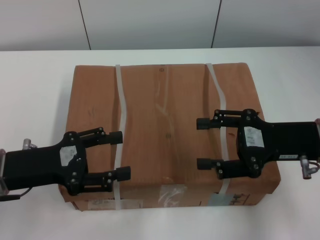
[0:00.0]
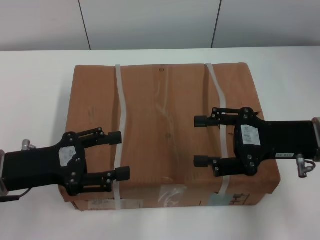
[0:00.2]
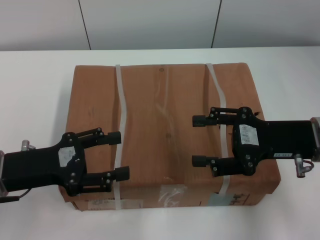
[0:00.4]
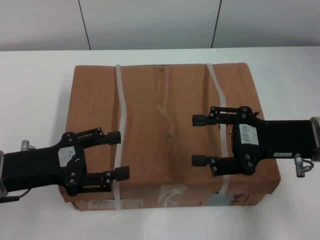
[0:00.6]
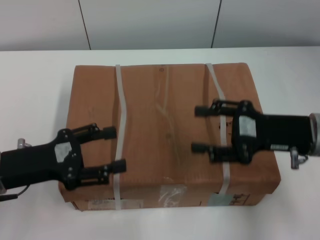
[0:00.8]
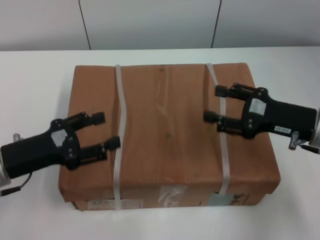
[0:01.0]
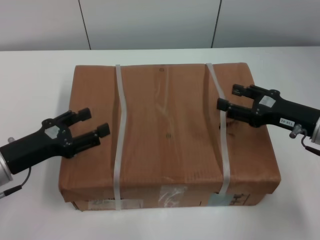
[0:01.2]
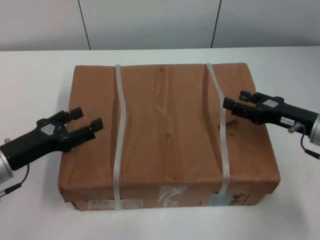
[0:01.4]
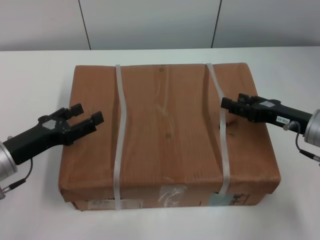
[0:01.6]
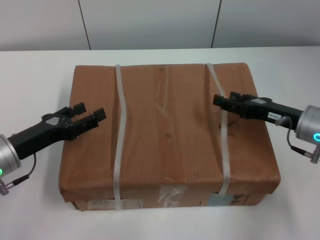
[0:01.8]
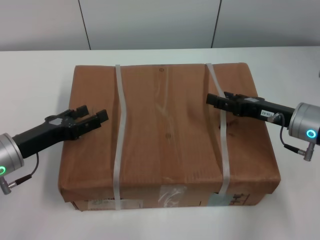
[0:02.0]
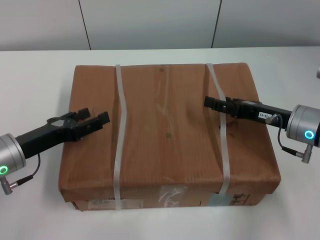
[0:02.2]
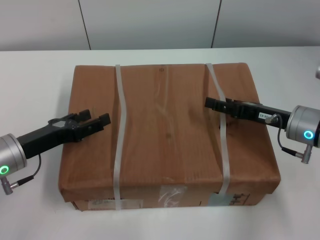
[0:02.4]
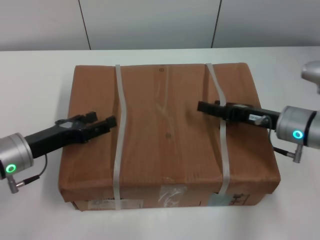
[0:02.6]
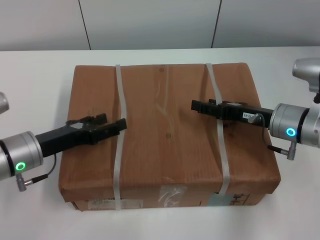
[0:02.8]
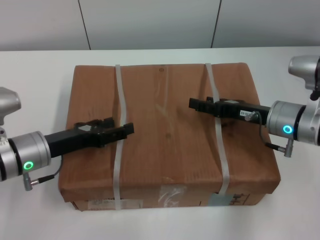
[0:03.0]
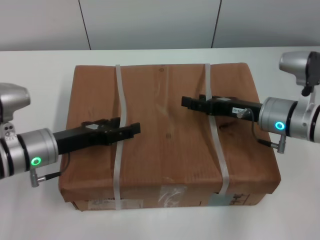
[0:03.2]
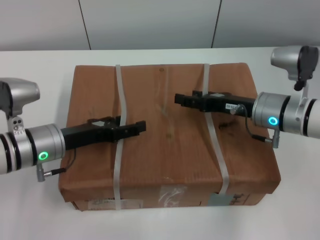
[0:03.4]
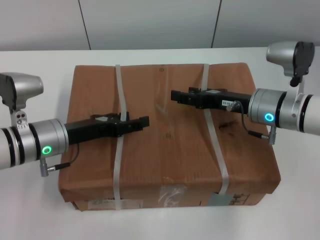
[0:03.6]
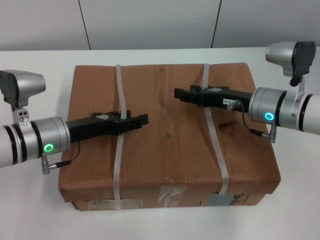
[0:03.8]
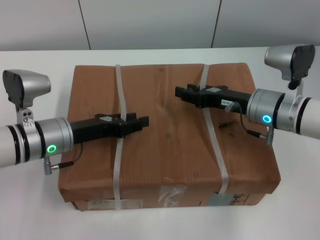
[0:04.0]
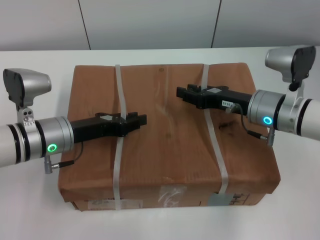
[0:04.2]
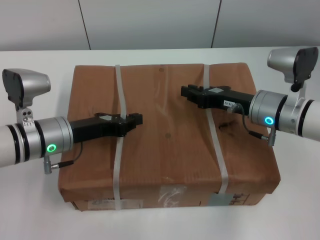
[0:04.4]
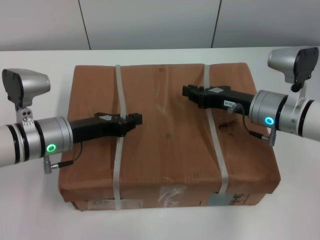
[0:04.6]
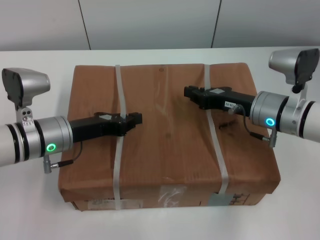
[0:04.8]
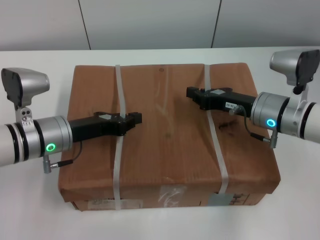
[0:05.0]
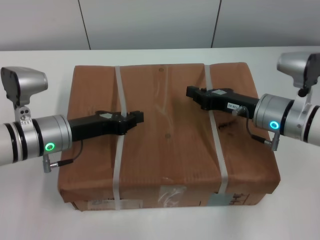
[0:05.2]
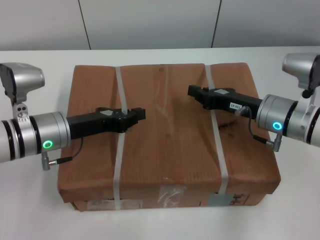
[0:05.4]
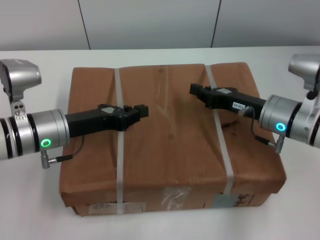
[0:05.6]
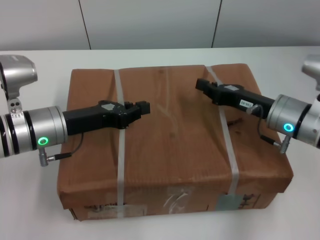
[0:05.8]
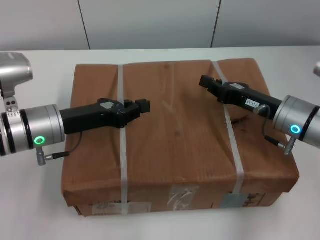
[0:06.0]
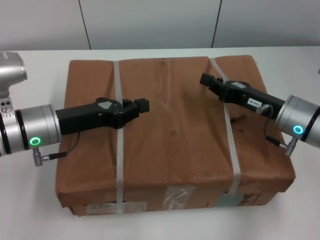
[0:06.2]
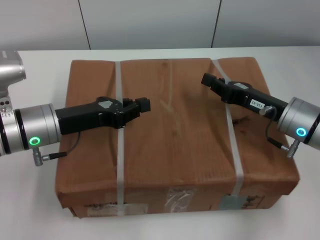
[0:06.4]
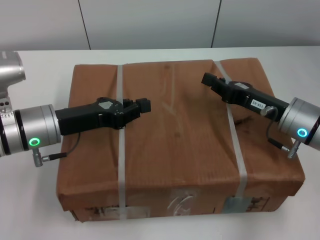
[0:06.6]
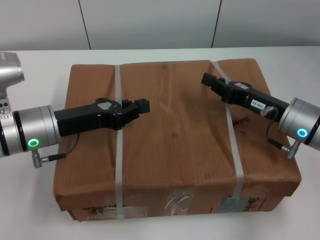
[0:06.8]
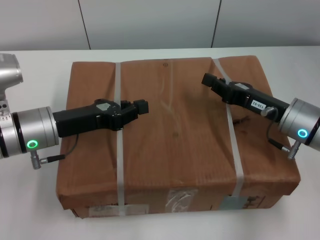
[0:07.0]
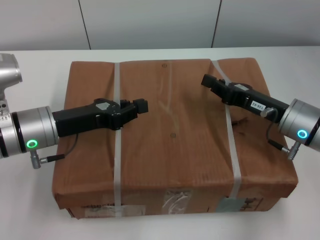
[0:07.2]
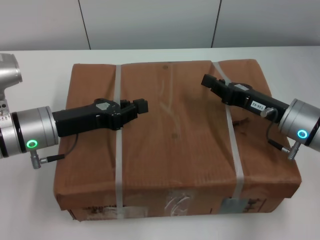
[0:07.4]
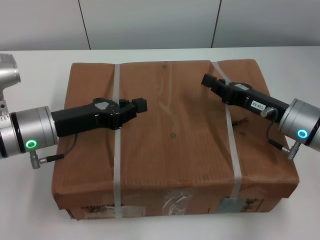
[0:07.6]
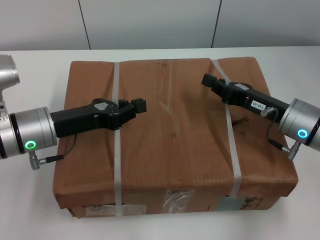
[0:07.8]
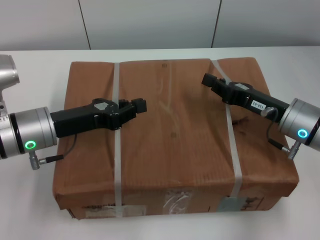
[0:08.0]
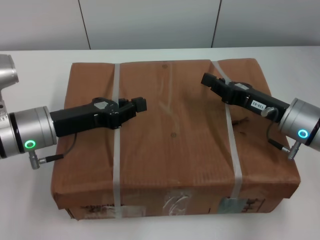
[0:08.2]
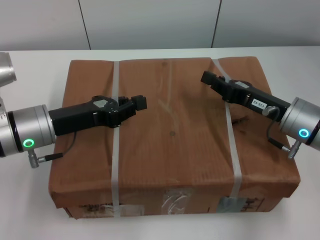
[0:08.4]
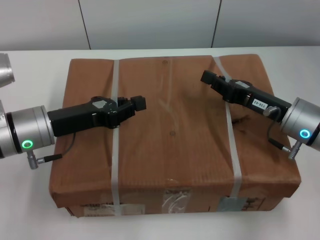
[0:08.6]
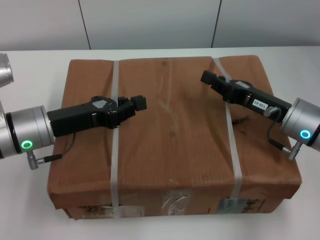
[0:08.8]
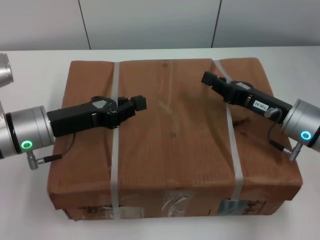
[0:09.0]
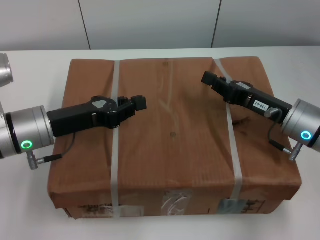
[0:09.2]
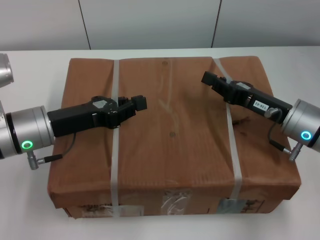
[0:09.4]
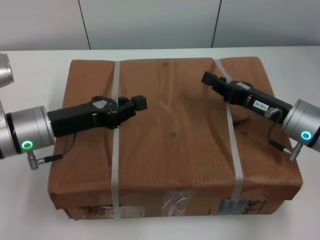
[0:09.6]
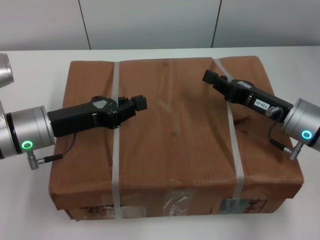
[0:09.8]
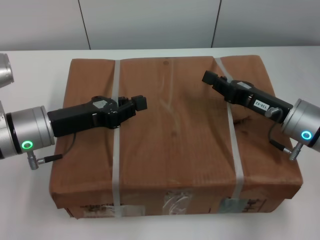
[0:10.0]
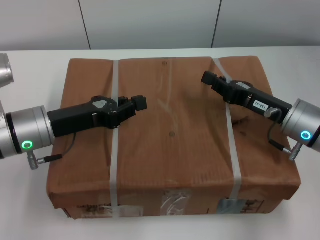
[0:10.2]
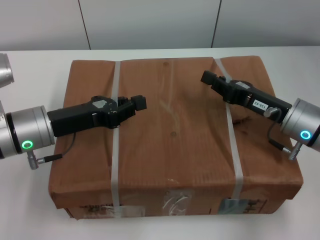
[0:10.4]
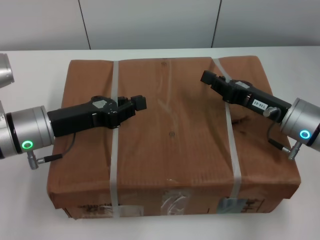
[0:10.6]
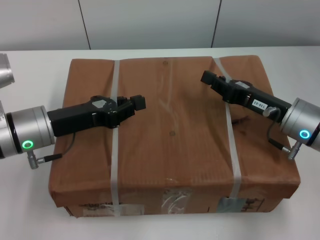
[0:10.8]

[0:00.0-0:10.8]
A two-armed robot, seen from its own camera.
Task of the whole recording: pick up the box from the table with both arms.
Step, 0:00.0 to 0:05.0: Grasp the bandage with left gripper.
Step, 0:00.0 to 0:05.0: Grasp the bandage with right gripper.
Step, 0:05.2 to 0:06.6: Lift the box with left gripper.
Step, 0:05.2 to 0:06.6: Lift the box with right gripper.
0:00.0 to 0:01.6: The left gripper shifts by roughly 5 cm, while the right gripper travels downward by about 5 cm.
0:01.6 to 0:03.0: The left gripper moves approximately 5 cm, while the right gripper shifts approximately 5 cm to the left.
0:03.0 to 0:04.6: The left gripper closes; the right gripper closes.
0:06.2 to 0:07.8: The two grippers keep their place.
0:07.8 to 0:10.8: Both grippers stay put.
